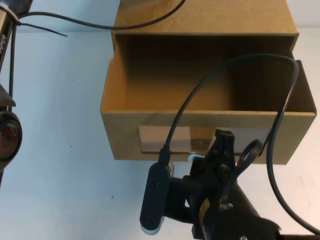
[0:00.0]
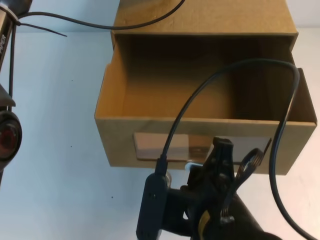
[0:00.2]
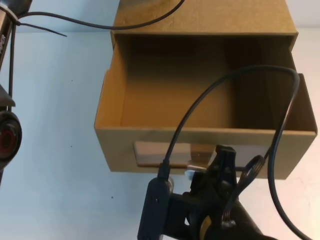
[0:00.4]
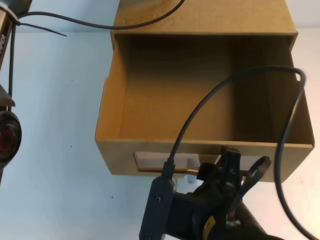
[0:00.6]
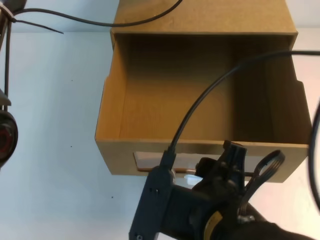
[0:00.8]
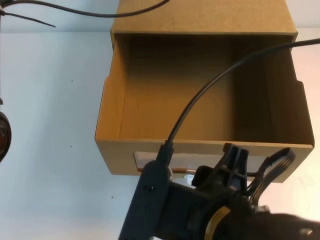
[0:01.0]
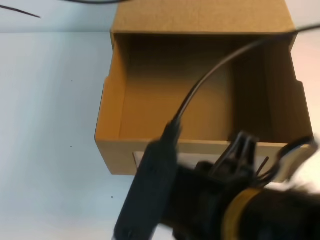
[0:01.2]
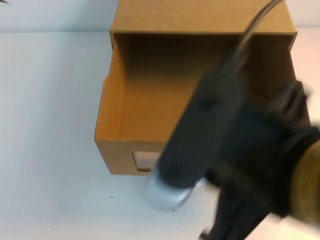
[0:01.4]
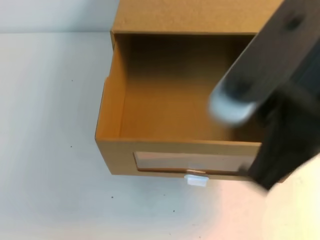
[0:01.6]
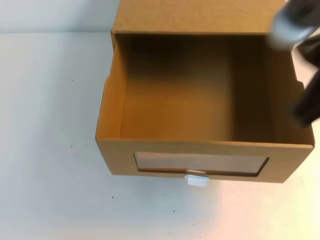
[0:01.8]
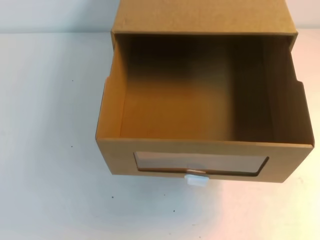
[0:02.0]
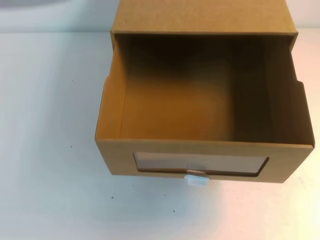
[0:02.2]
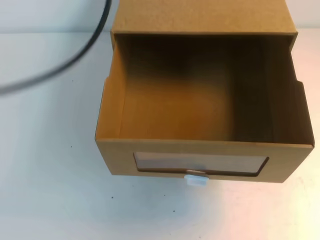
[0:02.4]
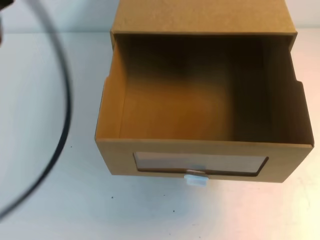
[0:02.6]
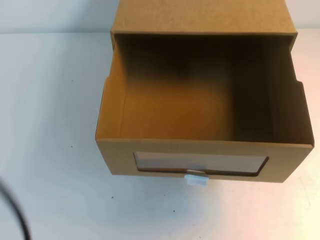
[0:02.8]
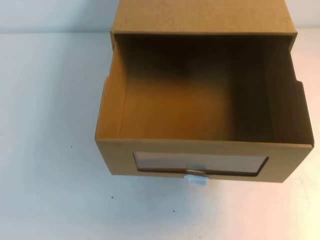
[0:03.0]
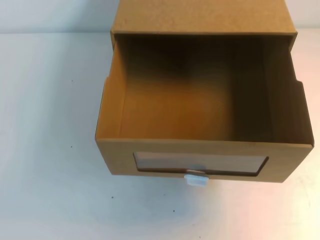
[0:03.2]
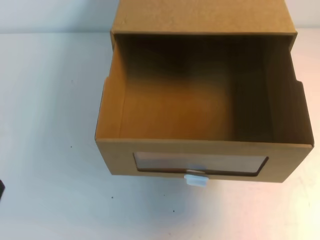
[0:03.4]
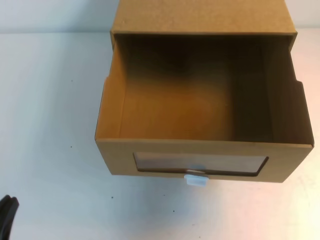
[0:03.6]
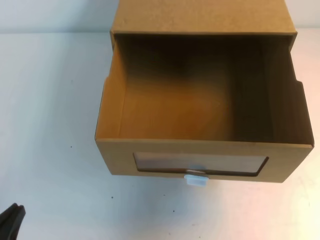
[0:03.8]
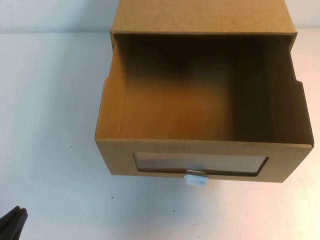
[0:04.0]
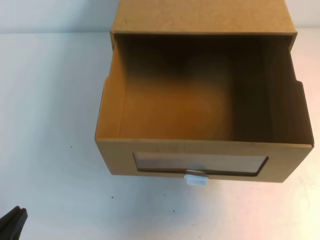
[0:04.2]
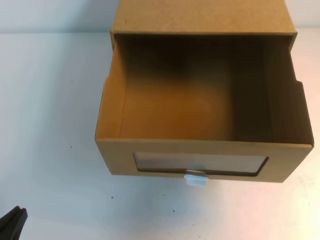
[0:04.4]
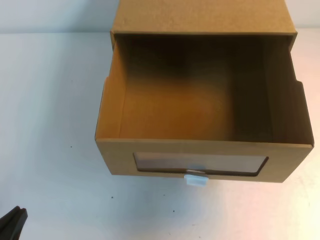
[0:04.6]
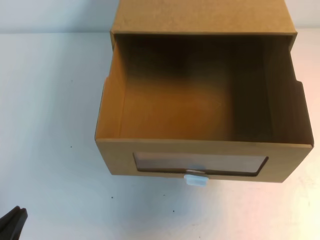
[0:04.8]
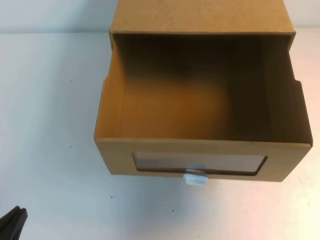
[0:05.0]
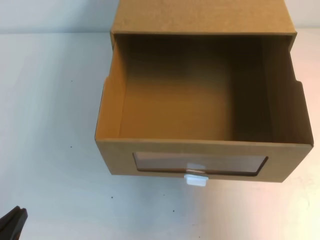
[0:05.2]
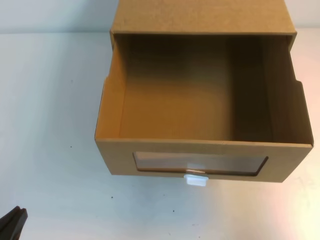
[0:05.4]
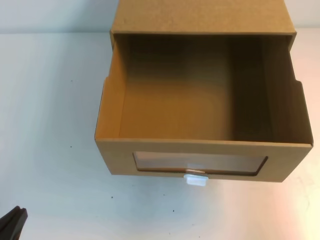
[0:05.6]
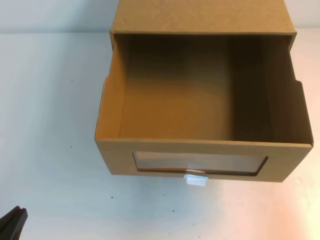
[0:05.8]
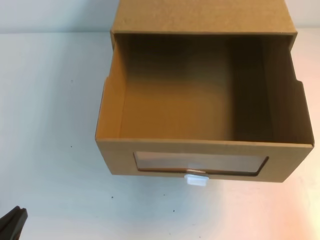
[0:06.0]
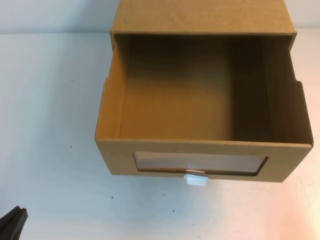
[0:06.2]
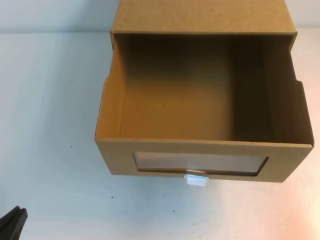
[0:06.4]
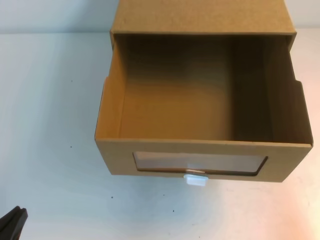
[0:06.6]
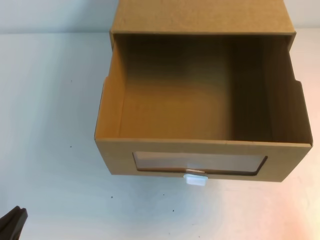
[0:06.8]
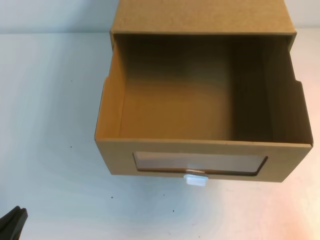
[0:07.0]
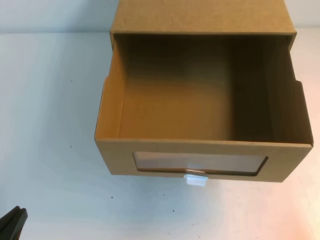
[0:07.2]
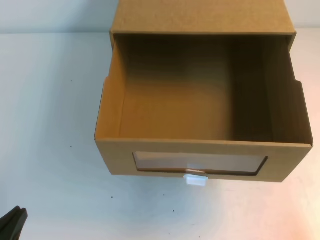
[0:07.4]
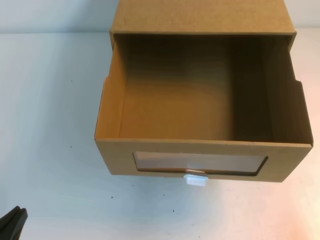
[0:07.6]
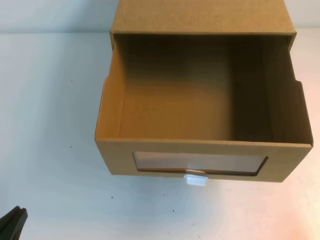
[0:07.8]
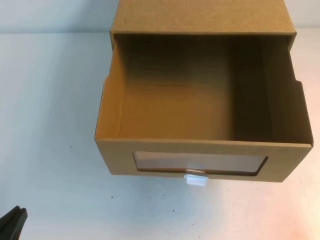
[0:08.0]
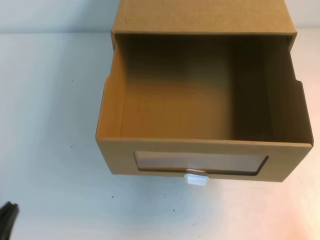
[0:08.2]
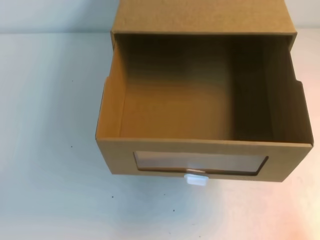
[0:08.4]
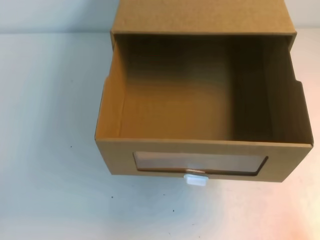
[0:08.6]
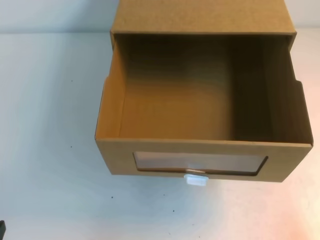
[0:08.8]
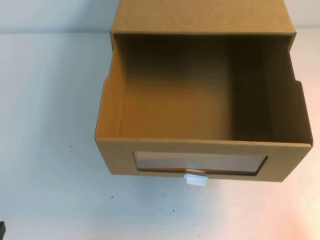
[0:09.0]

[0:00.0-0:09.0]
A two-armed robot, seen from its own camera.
Task of the whole recording: open the shoebox on the table.
Step, 0:00.0 to 0:09.0: Open the shoe box.
0:00.0 to 0:01.6: The left gripper shifts roughly 15 cm upward and backward, while the right gripper travels upward by about 15 cm, and opens, then closes once more.
0:01.6 to 0:03.0: The left gripper moves backward, downward and to the left, roughly 30 cm; the right gripper is displaced to the right and forward by some 20 cm.
0:03.0 to 0:04.4: The left gripper heads downward, covering approximately 20 cm.
0:04.4 to 0:06.0: The right gripper heads downward and backward, covering some 25 cm.

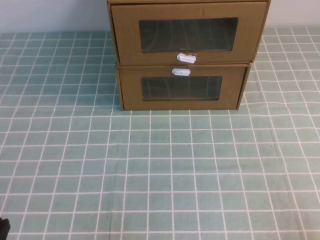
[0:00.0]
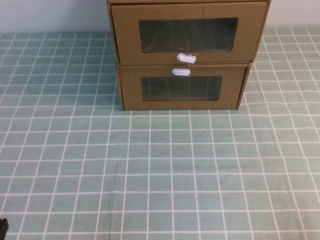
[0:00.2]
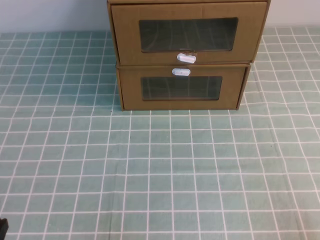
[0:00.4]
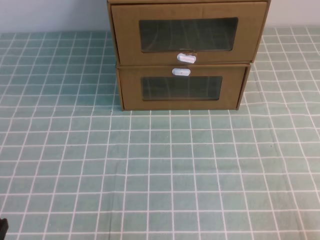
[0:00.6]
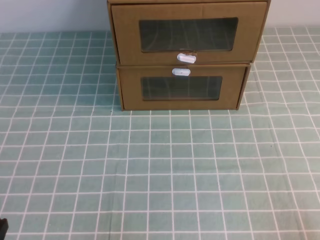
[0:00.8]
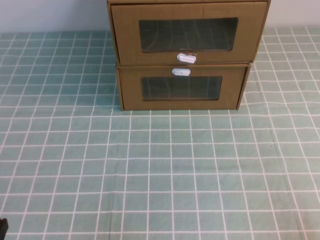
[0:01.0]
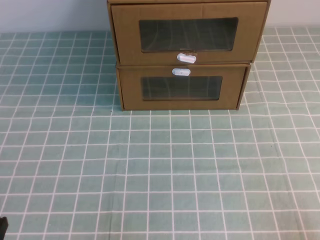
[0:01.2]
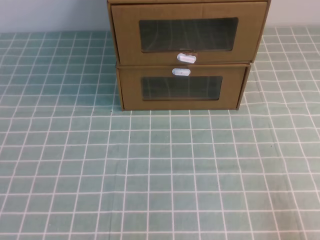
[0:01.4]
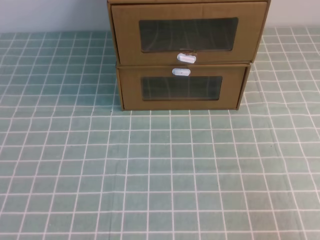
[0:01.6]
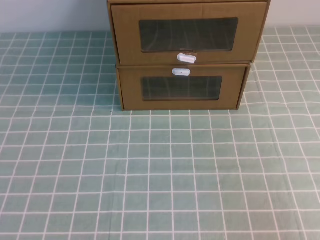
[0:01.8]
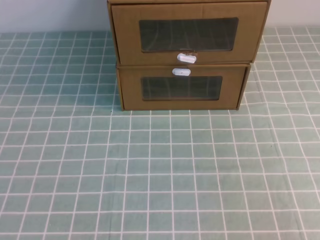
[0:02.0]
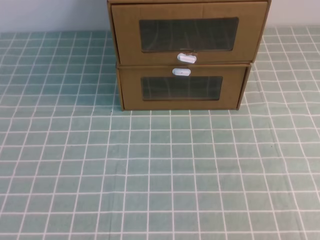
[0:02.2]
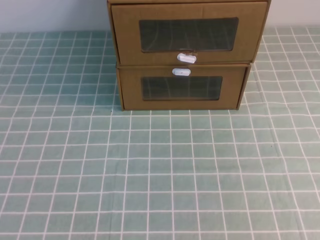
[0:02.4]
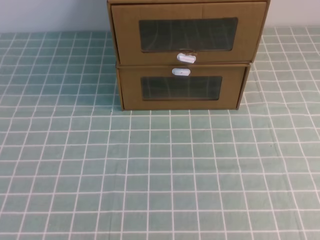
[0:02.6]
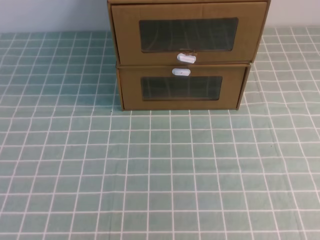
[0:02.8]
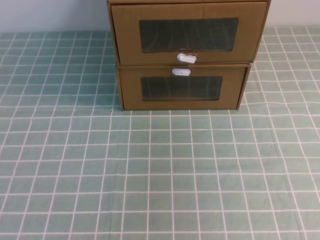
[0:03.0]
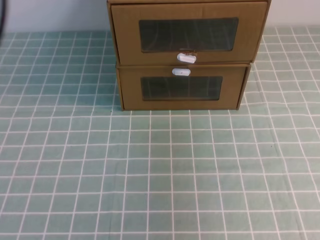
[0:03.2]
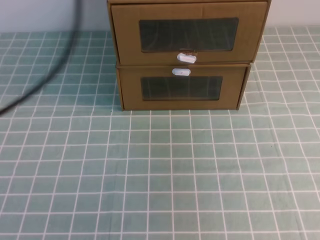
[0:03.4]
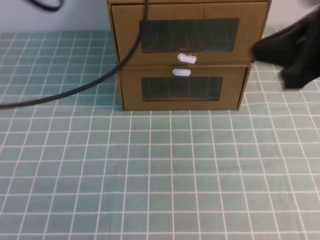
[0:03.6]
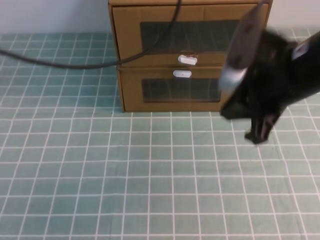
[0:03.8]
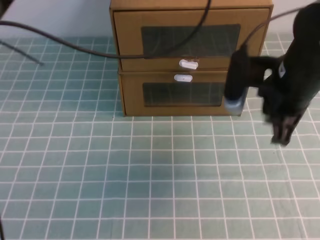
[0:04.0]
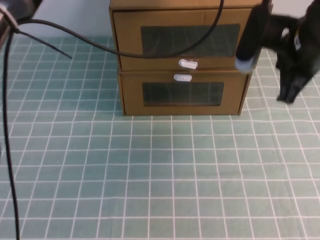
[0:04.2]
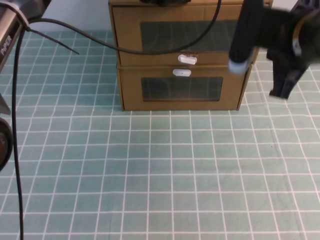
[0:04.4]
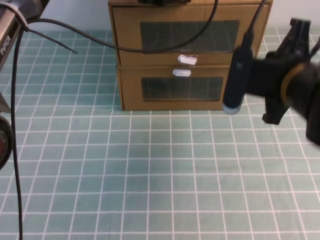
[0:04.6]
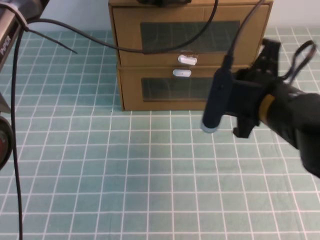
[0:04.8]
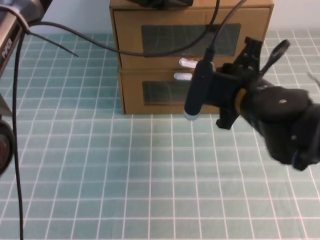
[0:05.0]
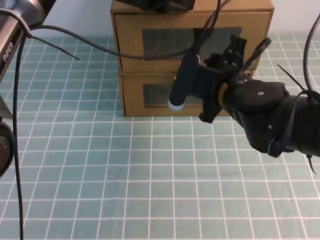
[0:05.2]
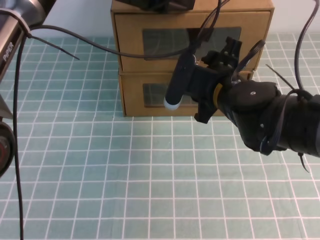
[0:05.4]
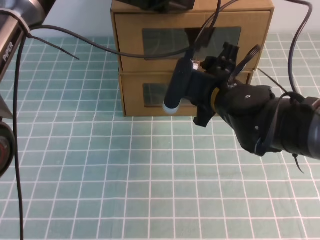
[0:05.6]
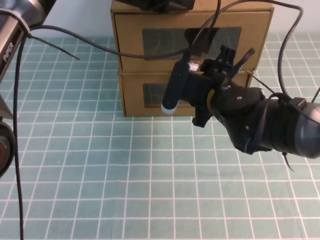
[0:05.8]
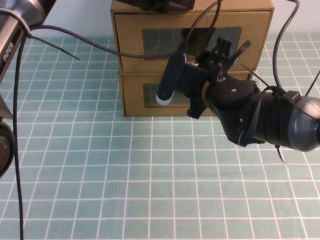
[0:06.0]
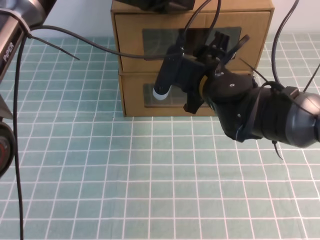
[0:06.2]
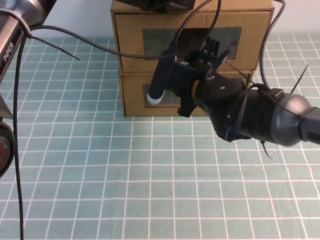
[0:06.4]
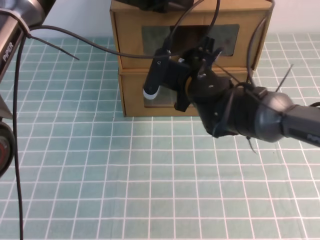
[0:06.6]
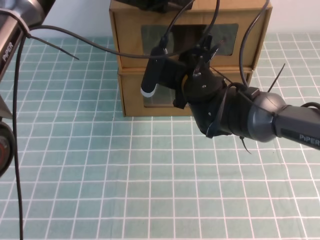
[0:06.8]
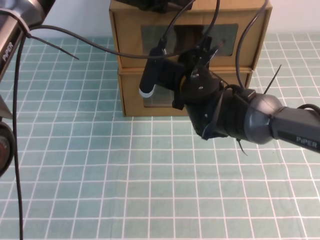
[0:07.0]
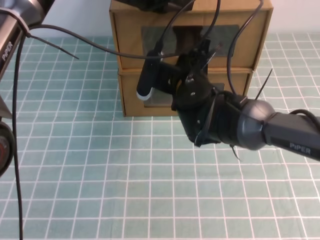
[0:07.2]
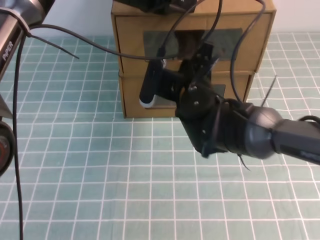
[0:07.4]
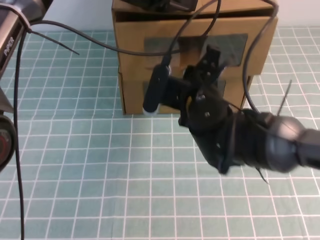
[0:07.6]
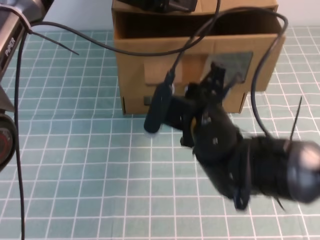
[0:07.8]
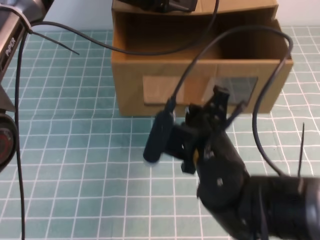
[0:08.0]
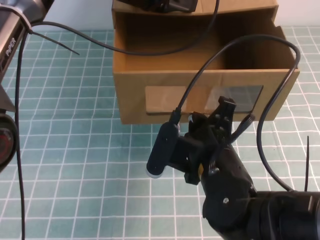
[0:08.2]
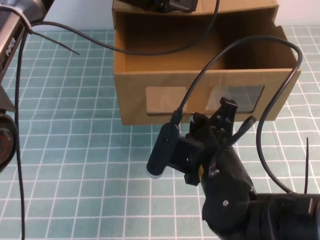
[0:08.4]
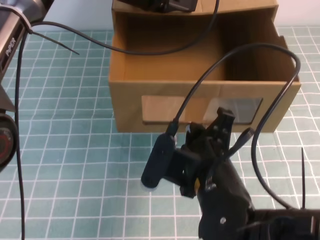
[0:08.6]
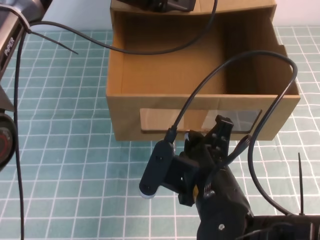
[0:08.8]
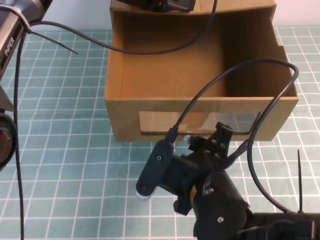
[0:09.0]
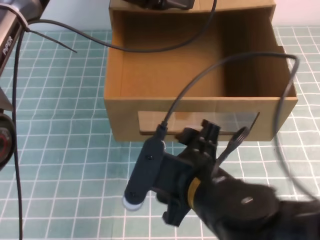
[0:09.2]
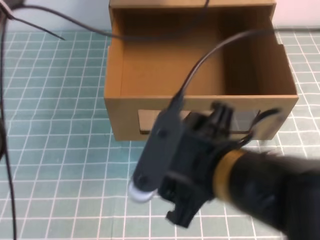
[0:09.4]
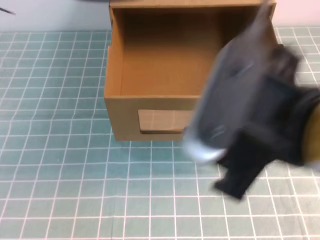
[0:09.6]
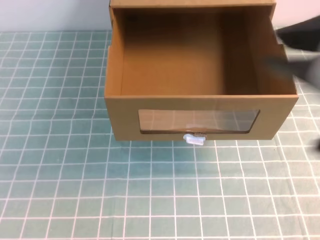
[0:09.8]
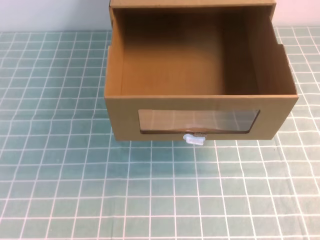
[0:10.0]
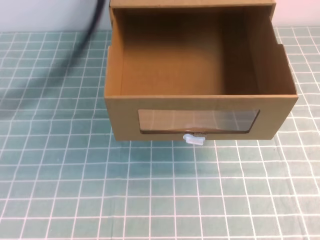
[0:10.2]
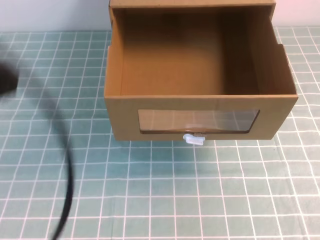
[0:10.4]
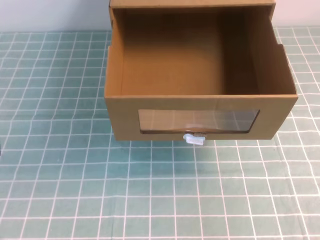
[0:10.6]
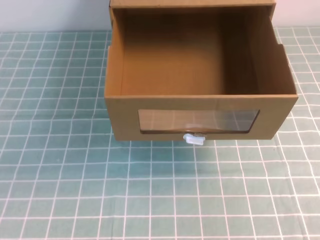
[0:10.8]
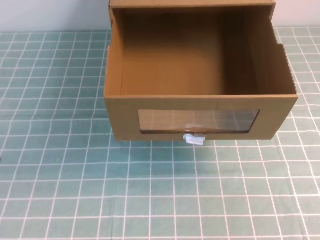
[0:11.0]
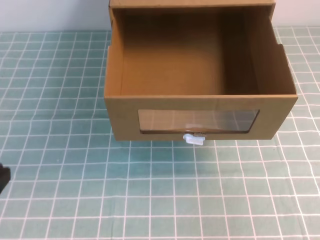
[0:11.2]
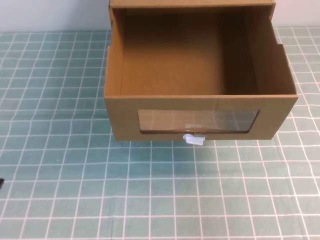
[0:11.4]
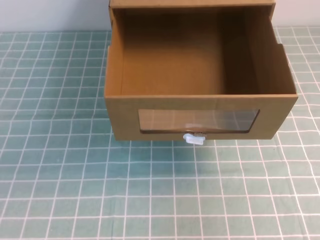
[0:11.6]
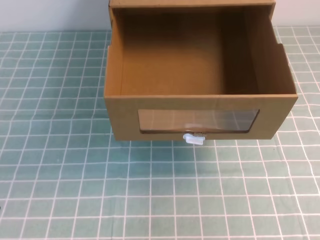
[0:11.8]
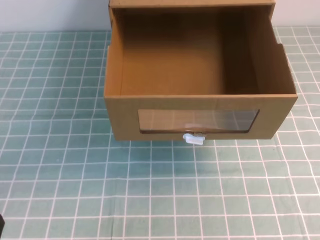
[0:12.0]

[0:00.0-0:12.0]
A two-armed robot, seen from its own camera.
Task of the whole recording: open the shoebox on the cyan tablecloth.
0:03.0 to 0:04.4: The left gripper heads forward, to the right and downward, covering roughly 40 cm. Meanwhile the right gripper moves forward, downward and to the left, roughly 30 cm.
0:04.4 to 0:06.0: The right gripper heads to the left and downward, covering roughly 15 cm, and opens its fingers.
0:06.0 to 0:07.6: The right gripper closes its fingers.
0:07.6 to 0:09.0: The right gripper shifts approximately 15 cm backward, and opens its fingers.
0:09.0 to 0:10.4: The left gripper is displaced backward and to the left by roughly 35 cm. The right gripper heads to the right, upward and backward, covering about 35 cm, and closes.
0:10.4 to 0:12.0: The right gripper goes roughly 5 cm downward; the left gripper shifts some 30 cm downward.

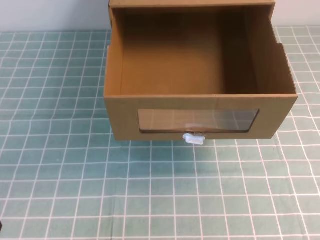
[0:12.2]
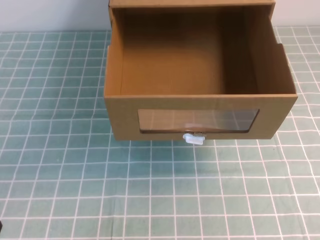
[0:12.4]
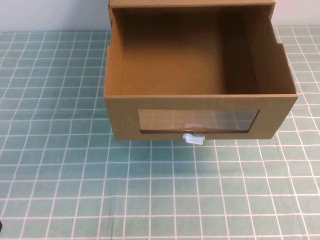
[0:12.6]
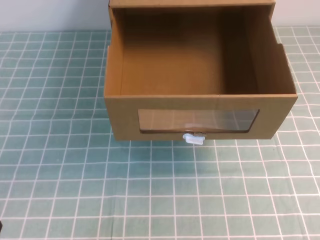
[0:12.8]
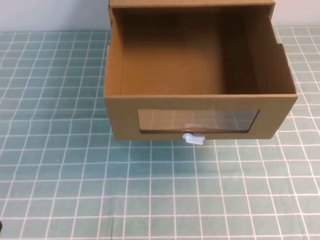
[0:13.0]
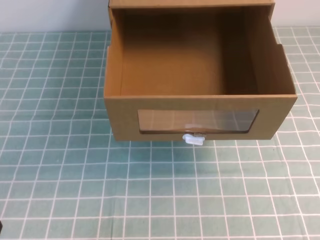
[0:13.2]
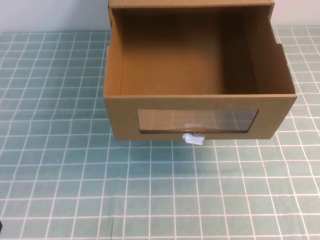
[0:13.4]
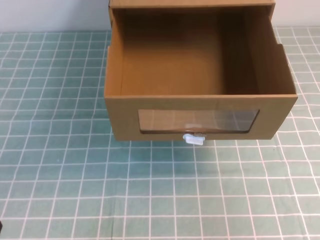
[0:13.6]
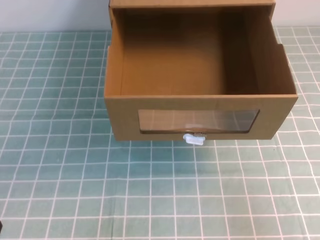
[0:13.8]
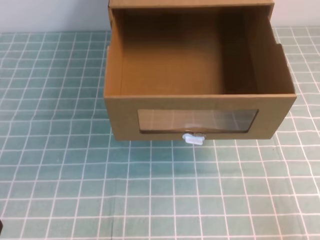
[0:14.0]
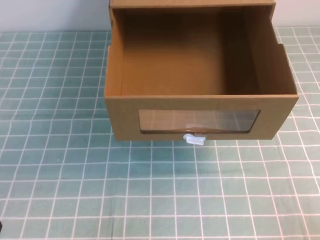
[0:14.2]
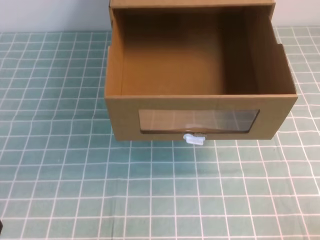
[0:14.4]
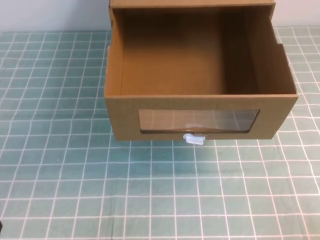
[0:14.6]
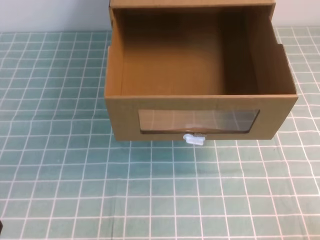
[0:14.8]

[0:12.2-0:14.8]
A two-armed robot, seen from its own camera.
Task of the whole recording: open the shoebox on the cyan tablecloth.
Step, 0:12.2 to 0:14.8: Open the shoe box.
0:13.4 to 0:14.8: The right gripper shifts approximately 20 cm downward.
